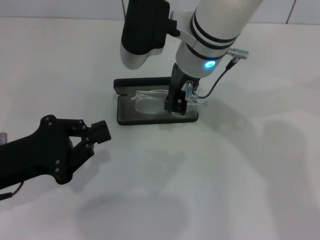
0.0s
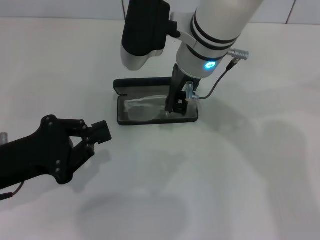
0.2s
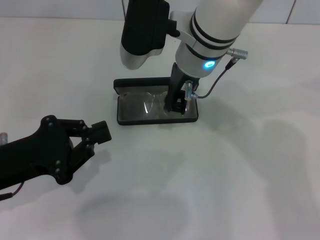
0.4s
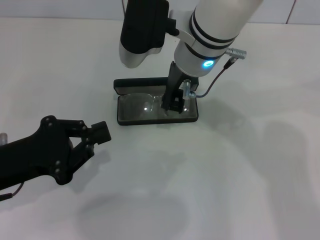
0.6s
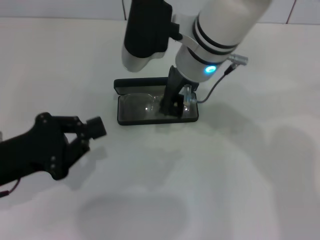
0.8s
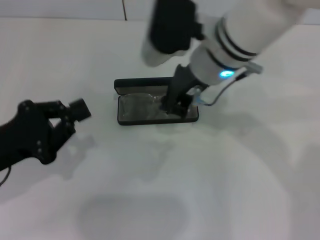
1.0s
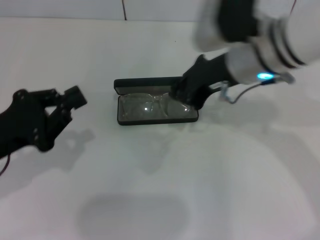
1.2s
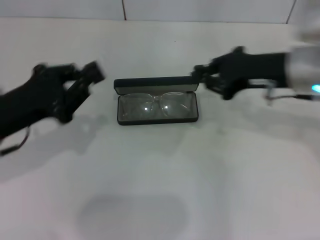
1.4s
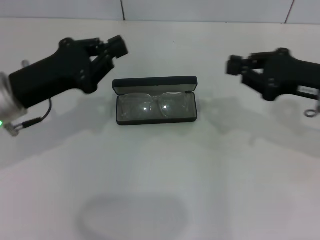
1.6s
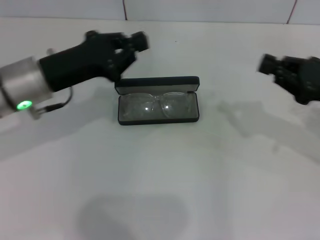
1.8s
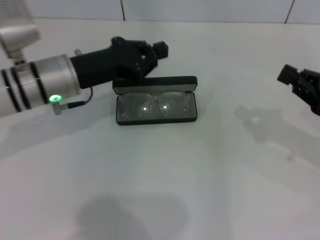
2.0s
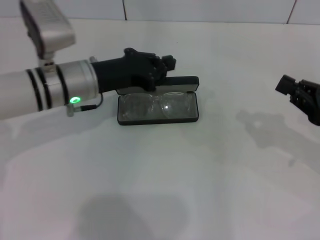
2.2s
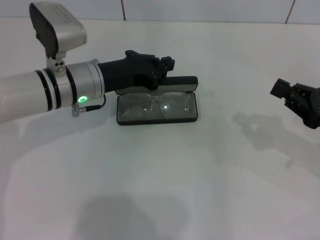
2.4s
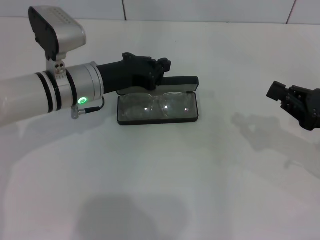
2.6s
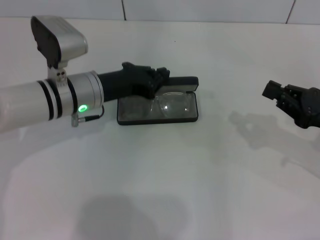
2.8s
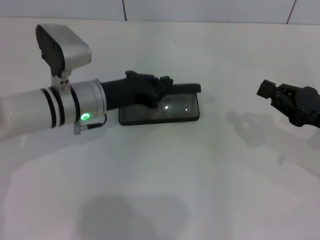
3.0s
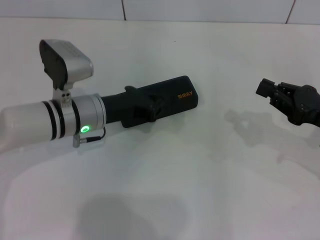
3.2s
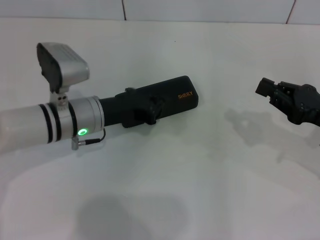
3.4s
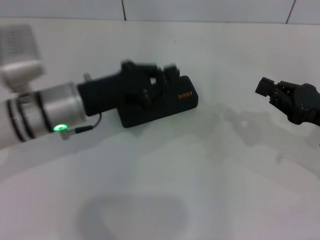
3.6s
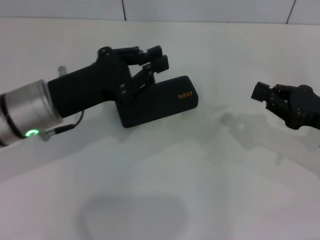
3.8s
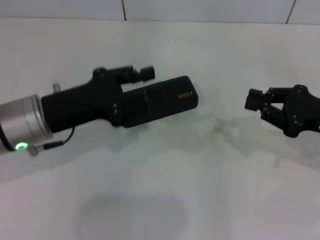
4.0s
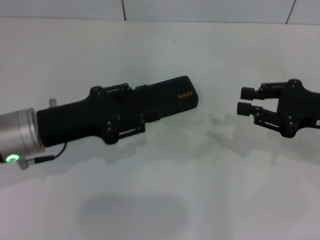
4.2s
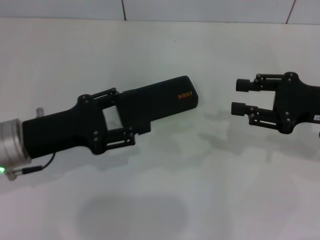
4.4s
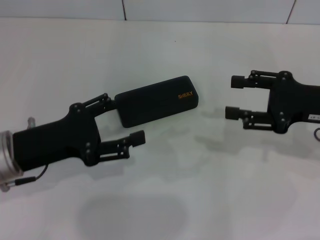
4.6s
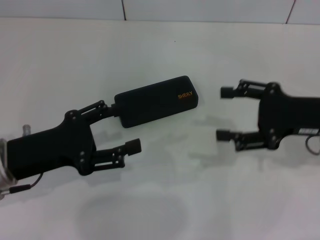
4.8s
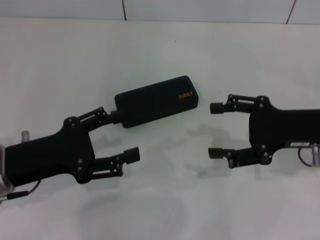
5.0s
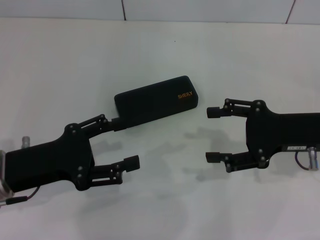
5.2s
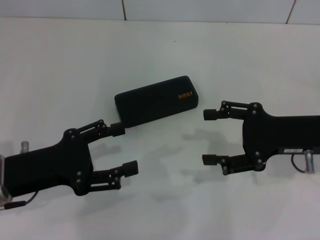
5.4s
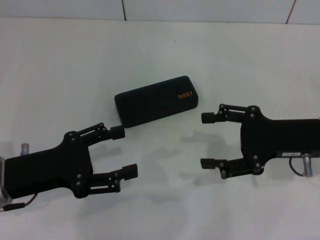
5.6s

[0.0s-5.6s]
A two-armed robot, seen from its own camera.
Step, 0.6s to 3.0s: Close the glasses case with your left hand.
0.0s to 1.4s: The right gripper is displaced to the right by approximately 15 cm.
1.4s to 2.8s: The right gripper goes approximately 15 cm to the right, downward and backward, while the left gripper moves forward and to the right, approximately 15 cm.
2.8s to 4.2s: The right gripper moves roughly 5 cm. Meanwhile the left gripper goes roughly 10 cm backward and to the left, and opens.
4.2s to 5.6s: The right gripper opens, while the left gripper shifts approximately 5 cm backward, and opens its fingers.

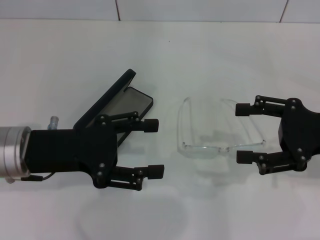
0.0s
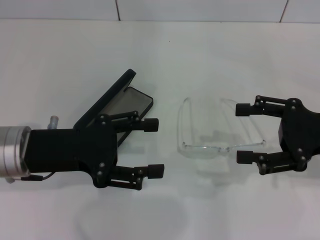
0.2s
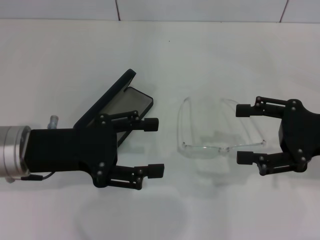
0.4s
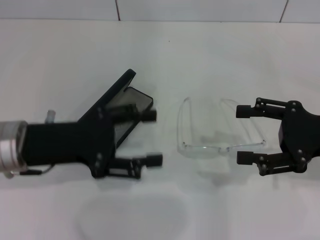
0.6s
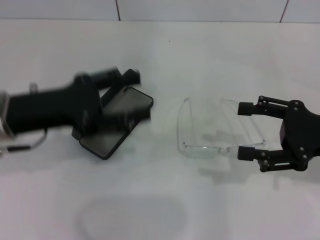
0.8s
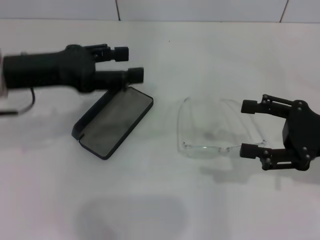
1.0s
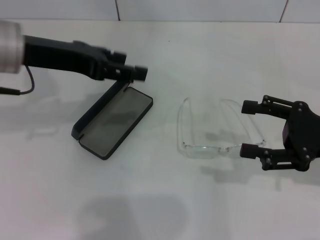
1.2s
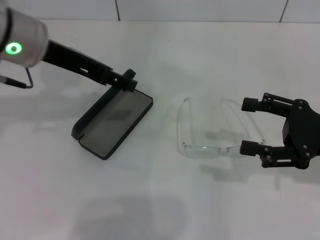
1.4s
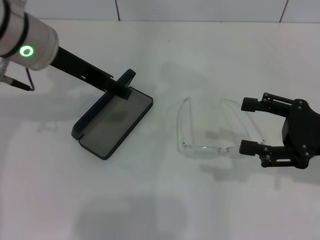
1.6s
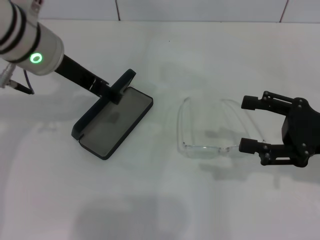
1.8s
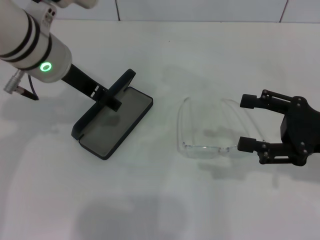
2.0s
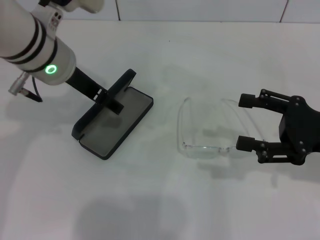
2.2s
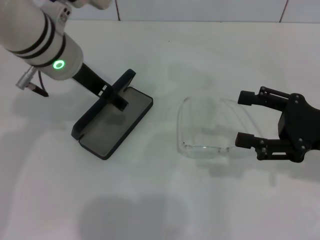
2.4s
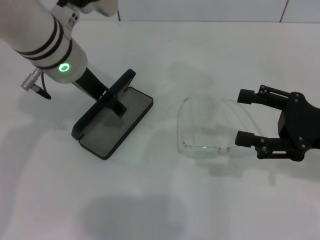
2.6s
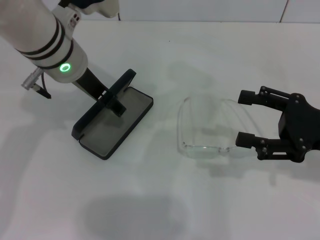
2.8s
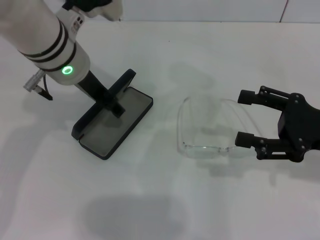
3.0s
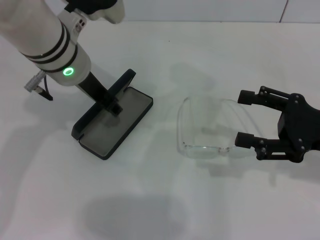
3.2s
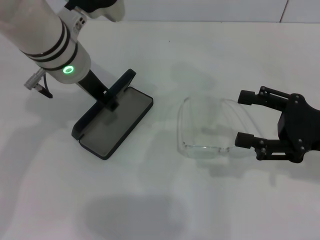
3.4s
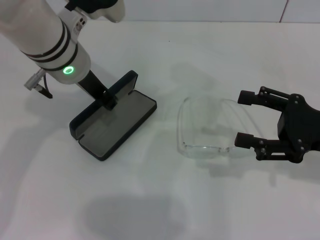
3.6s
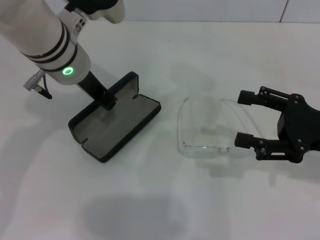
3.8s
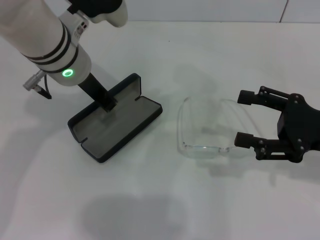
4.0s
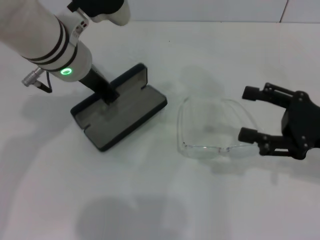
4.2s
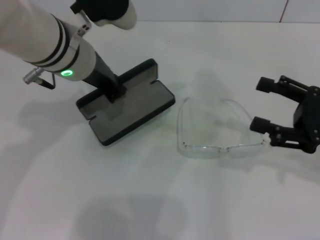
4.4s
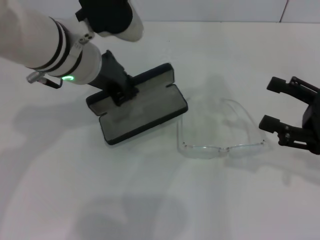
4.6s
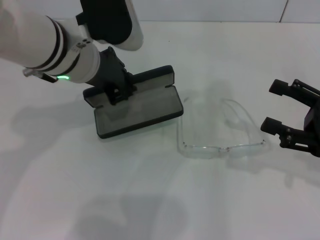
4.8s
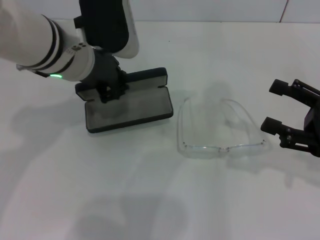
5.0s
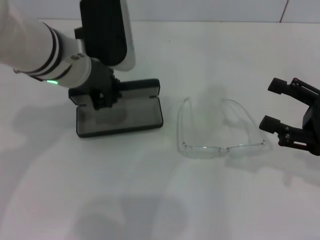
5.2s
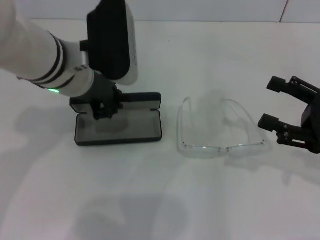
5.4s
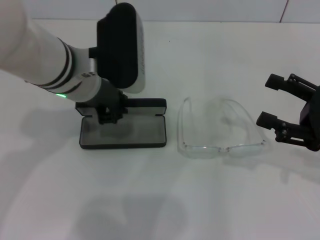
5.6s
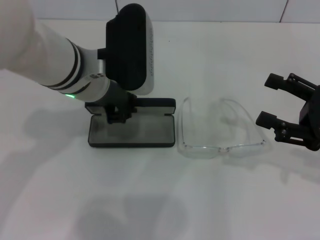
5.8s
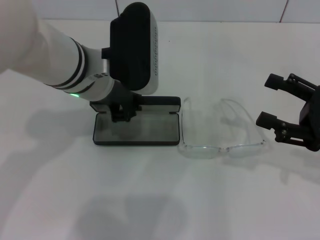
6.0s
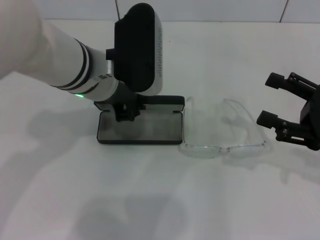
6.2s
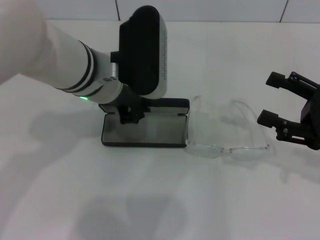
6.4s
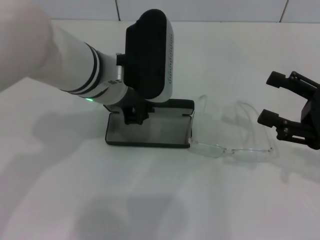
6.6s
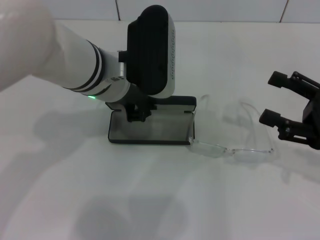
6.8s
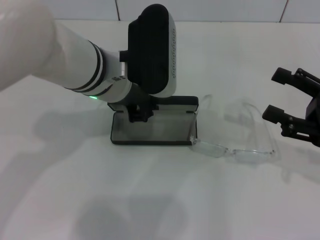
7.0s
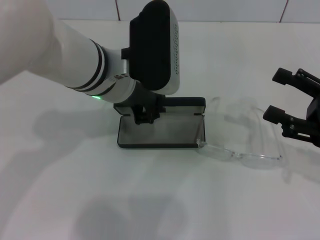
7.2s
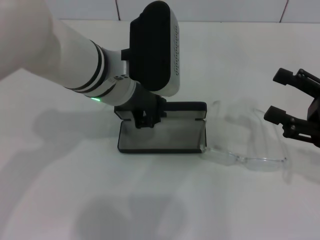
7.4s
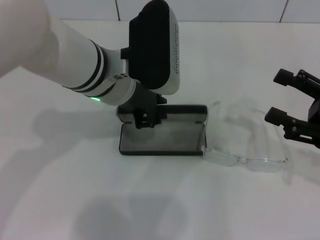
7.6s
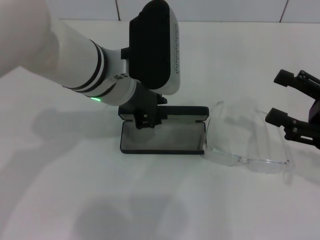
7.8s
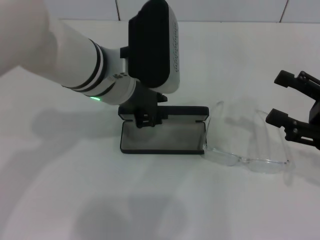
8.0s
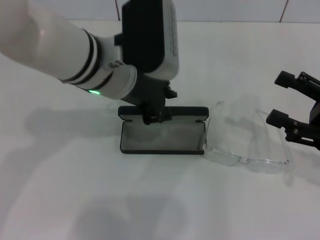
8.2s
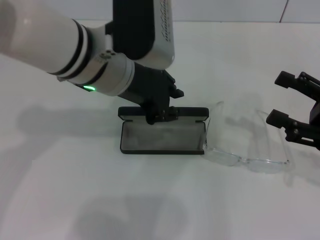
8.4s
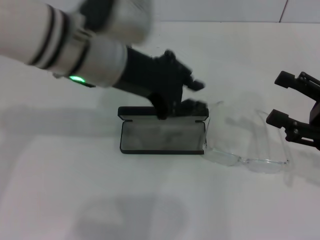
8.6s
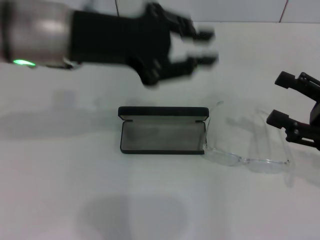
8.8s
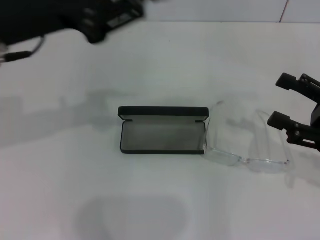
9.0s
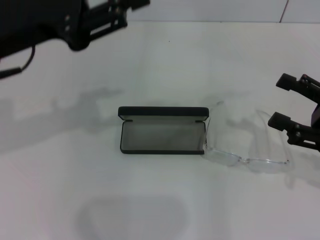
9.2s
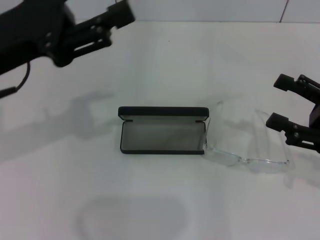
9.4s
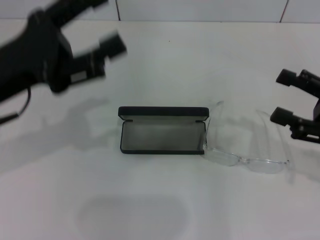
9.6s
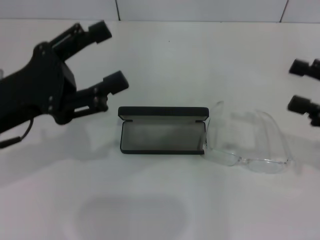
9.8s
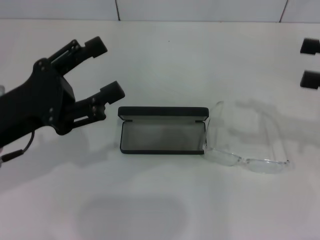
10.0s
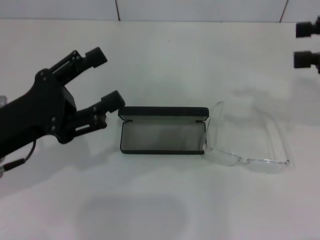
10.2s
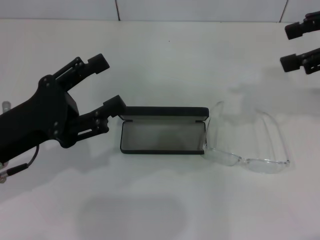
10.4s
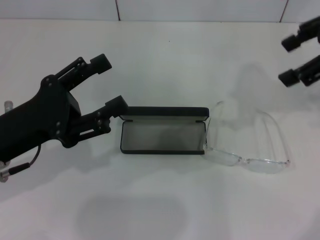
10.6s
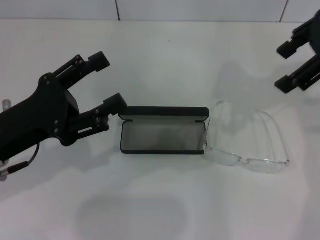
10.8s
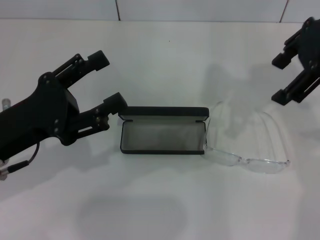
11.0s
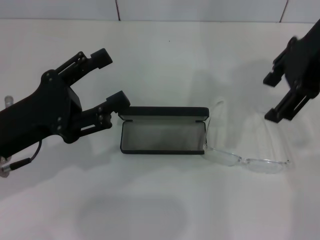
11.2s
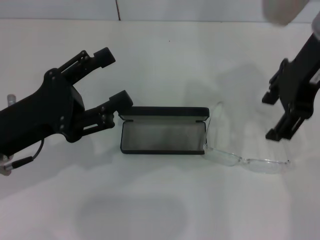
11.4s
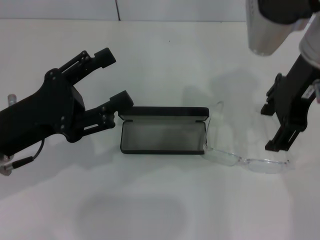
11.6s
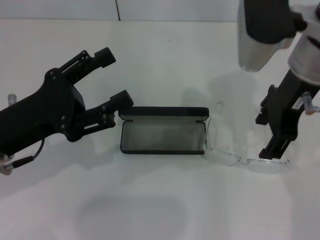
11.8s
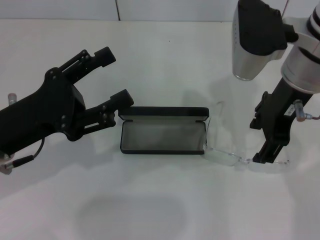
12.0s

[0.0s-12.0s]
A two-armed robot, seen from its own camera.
Step, 0.0s to 3.6s: Grab the glasses case with your left hand.
Step, 3.8s to 7.6s: Place the glasses case in the center of the table with your left hand.
0.0s to 1.6s: The left gripper is displaced forward and upward by approximately 15 cm.
1.6s to 3.0s: The left gripper moves about 5 cm.
3.0s to 4.4s: The left gripper closes.
6.0s to 7.6s: The grippers stay close to where they were, moving slightly.
7.6s to 9.0s: The left gripper goes approximately 15 cm to the left and upward.
9.0s to 10.4s: The right gripper goes approximately 20 cm upward and forward. The left gripper moves downward and backward, about 15 cm, and opens up.
10.4s to 12.0s: The right gripper shifts about 15 cm to the left and downward.

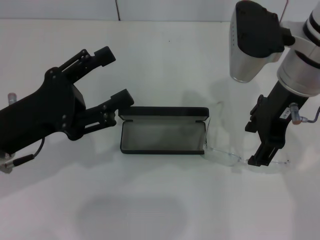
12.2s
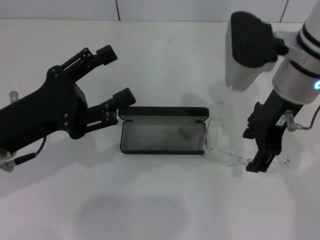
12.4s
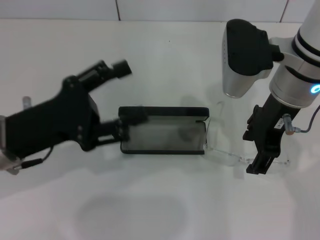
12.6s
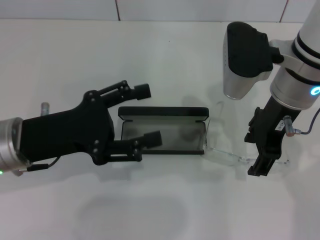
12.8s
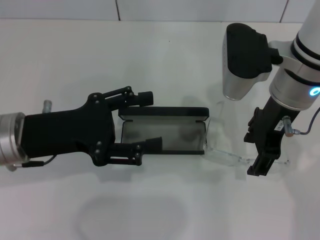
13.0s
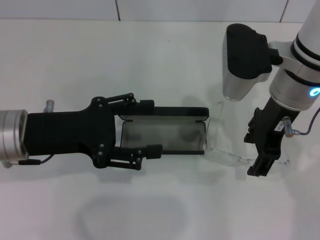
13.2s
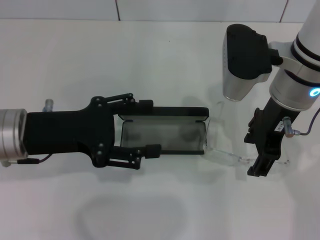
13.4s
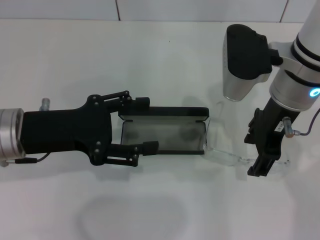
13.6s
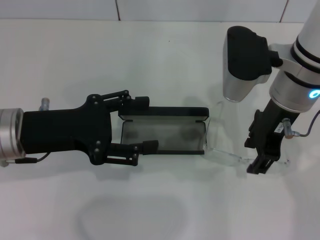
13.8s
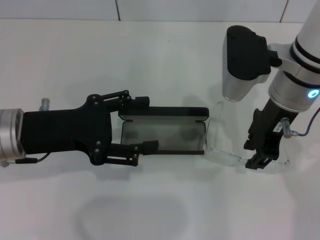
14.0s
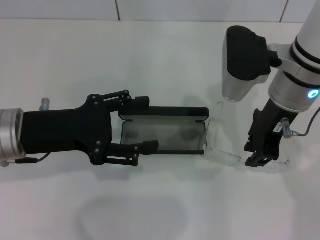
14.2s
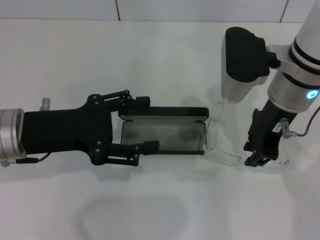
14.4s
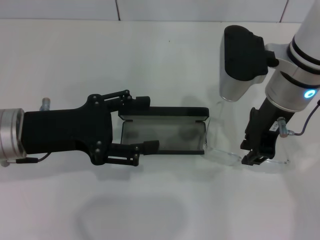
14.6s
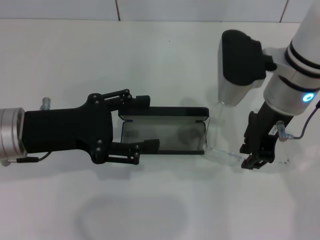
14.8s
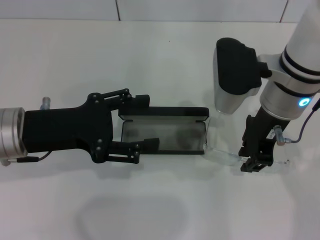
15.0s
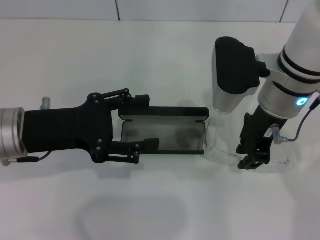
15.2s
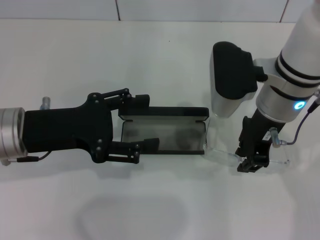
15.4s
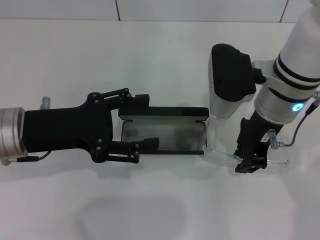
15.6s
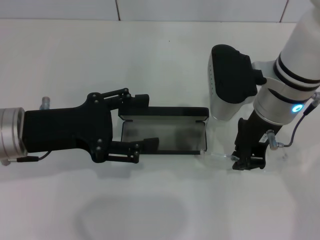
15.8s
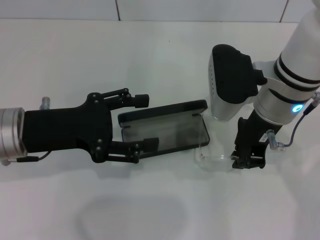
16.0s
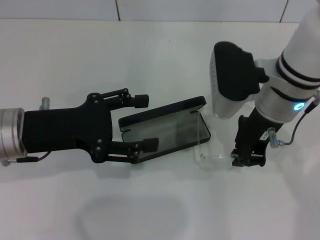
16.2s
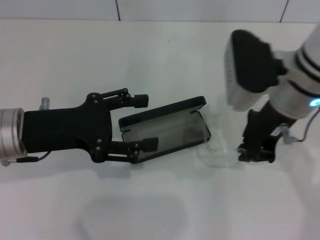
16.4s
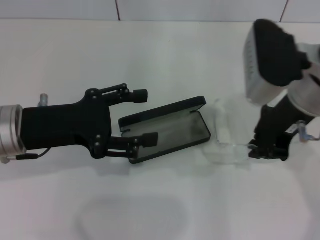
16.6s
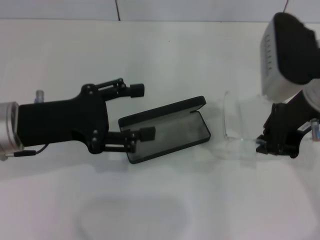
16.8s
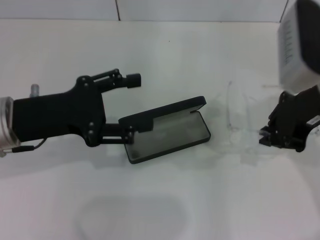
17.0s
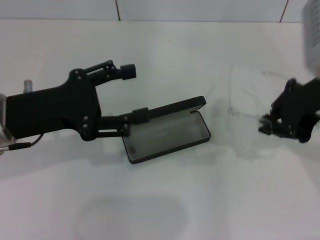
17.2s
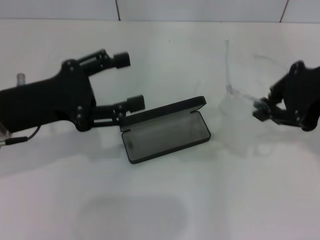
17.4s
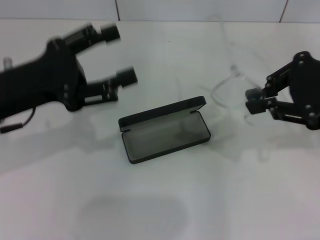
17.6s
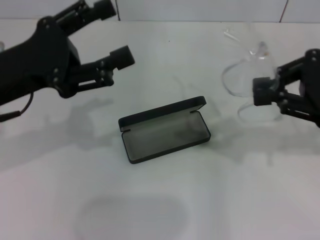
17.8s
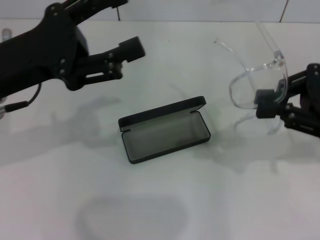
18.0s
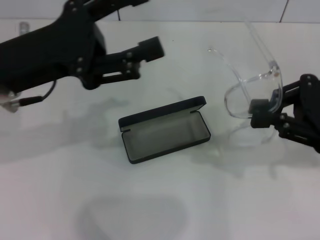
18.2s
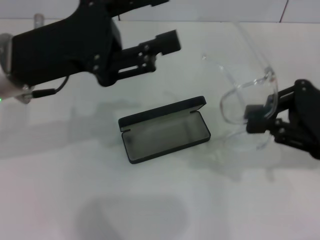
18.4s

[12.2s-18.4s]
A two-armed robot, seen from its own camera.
Step, 12.2s to 15.8s: Grab the eyeglass frame with your right hand.
13.8s to 15.4s: The right gripper closes its fingers.
15.4s to 16.8s: The right gripper moves to the right, about 5 cm.
16.8s to 18.4s: The right gripper heads to the right, covering approximately 10 cm. Meanwhile the left gripper is displaced upward by some 5 cm.
